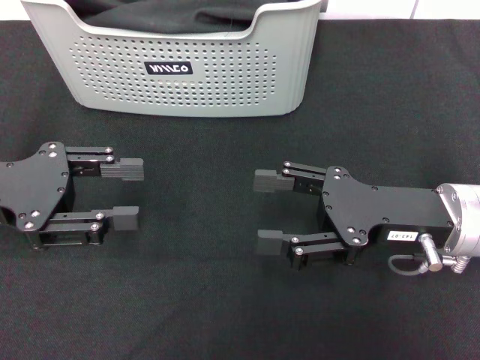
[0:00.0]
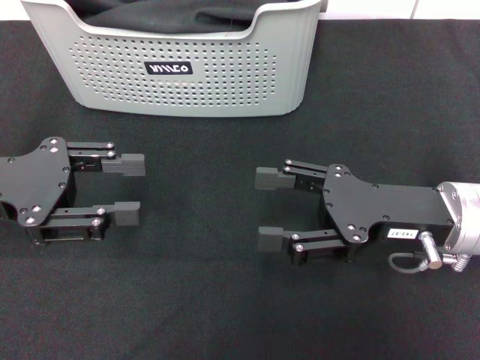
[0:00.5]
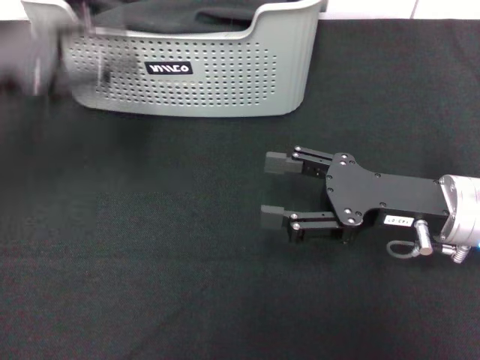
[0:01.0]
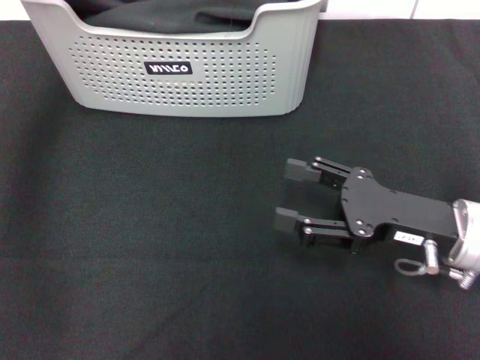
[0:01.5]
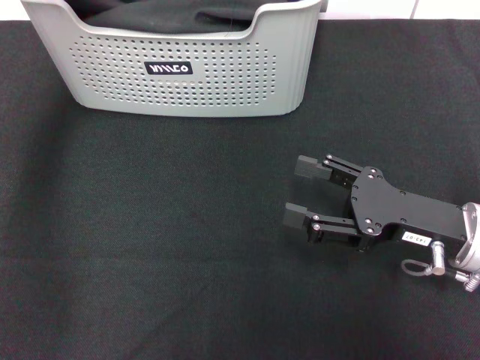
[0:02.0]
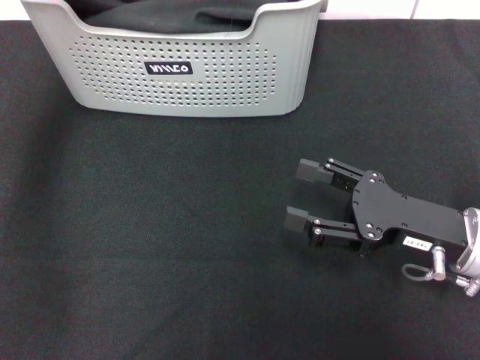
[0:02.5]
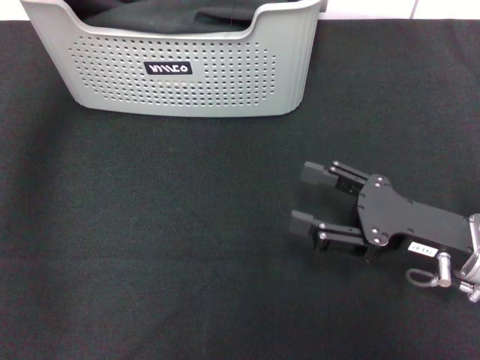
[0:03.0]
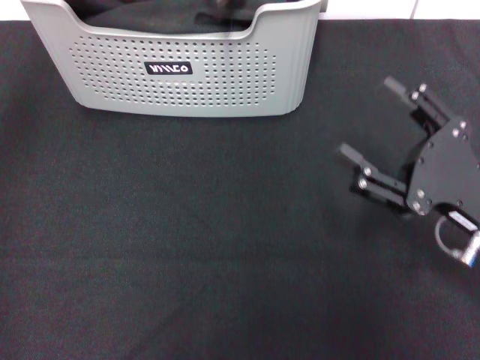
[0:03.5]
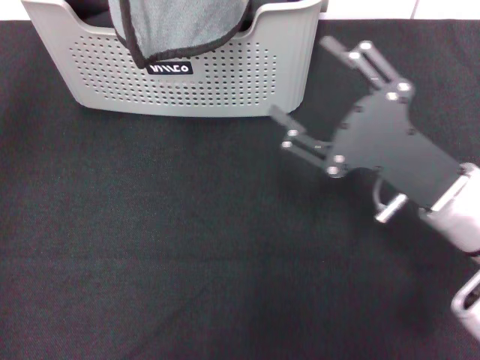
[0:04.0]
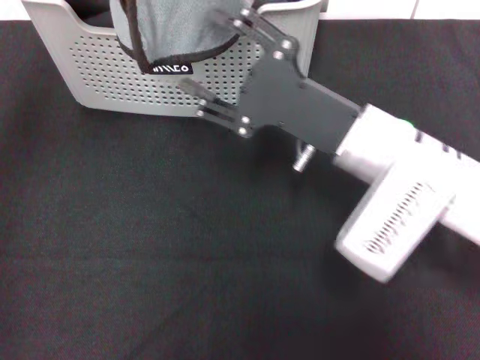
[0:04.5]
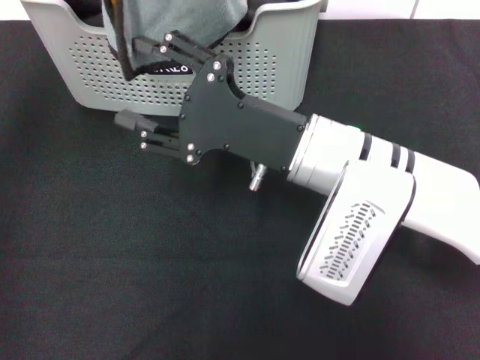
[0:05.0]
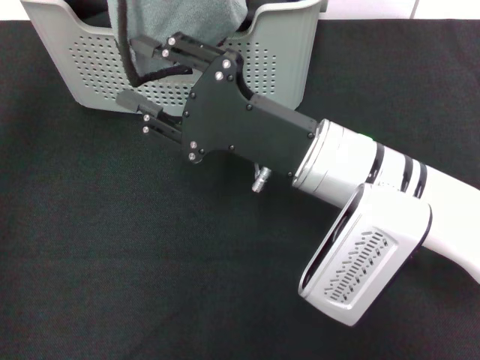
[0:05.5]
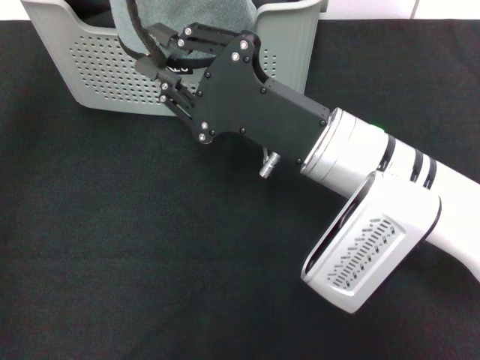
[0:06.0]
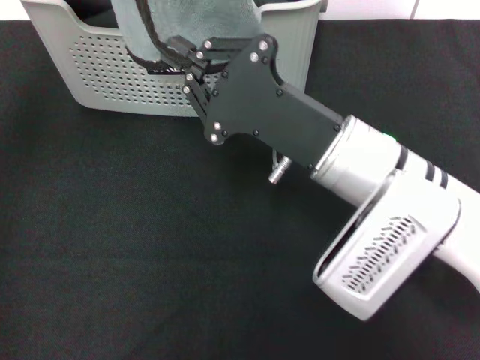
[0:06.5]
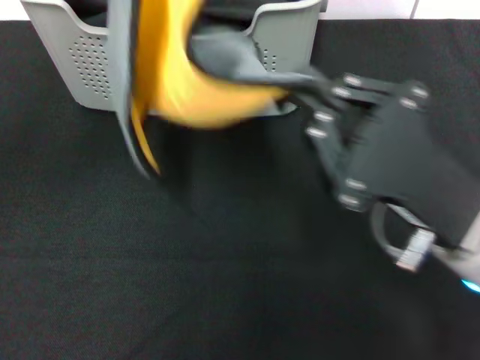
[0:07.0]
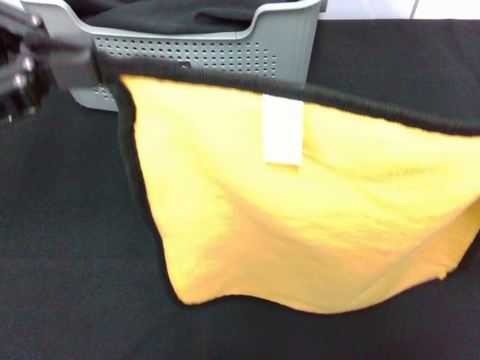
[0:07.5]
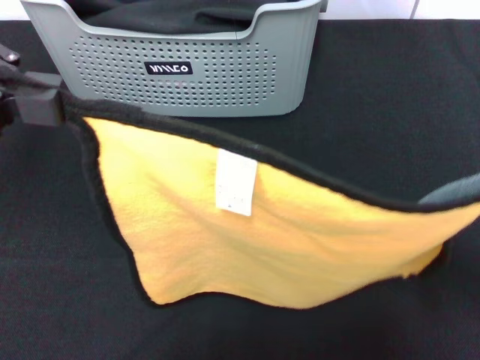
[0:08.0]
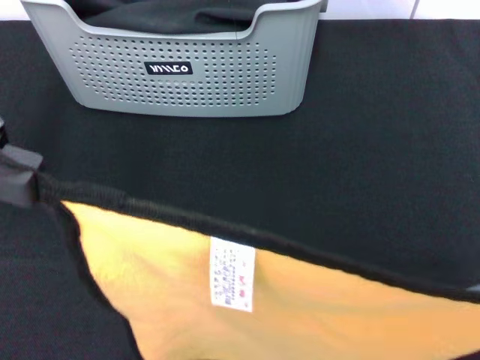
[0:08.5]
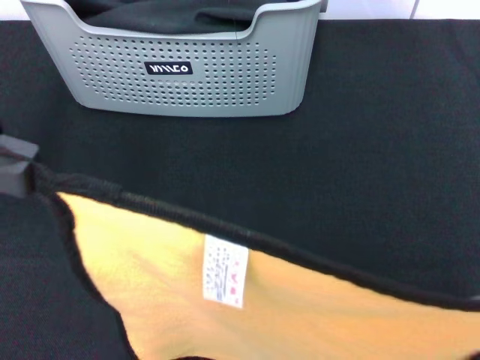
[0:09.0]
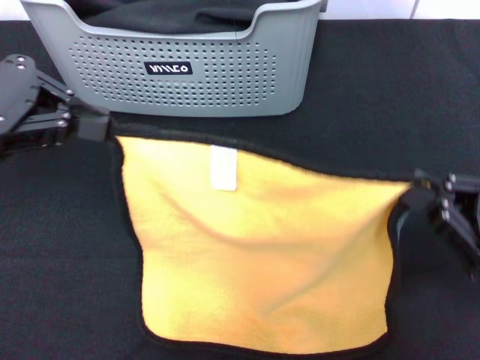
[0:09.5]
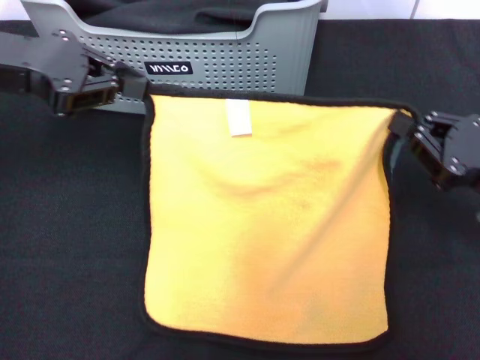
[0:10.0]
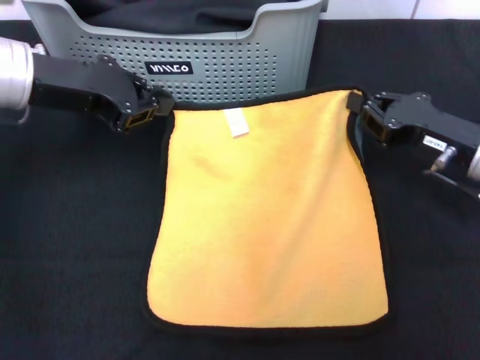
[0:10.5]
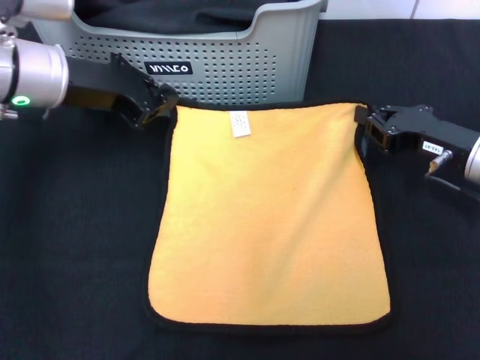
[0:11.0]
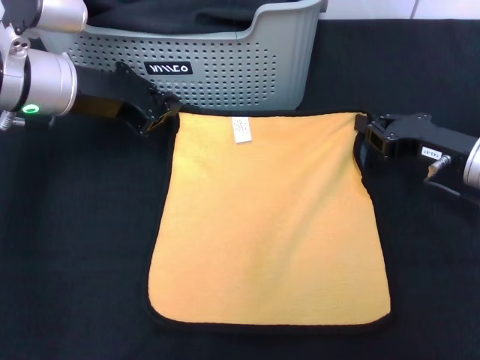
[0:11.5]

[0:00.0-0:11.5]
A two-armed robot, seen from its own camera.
Task of the whole recording: pick up the towel from the storage box and lay it flat on the black tablecloth.
Step, 0:00.0 to 0:03.0: Pick up a towel with the left gripper.
Step, 0:03.5 to 0:06.5: Spread the towel flat with the left gripper.
0:00.0 to 0:02.0: The left gripper heads forward, upward and to the right, covering roughly 20 cm.
0:02.0 to 0:04.0: The left gripper is displaced backward and upward by about 15 cm, and closes.
0:04.0 to 0:06.0: The right gripper heads to the left, covering about 10 cm, and closes.
0:06.0 to 0:07.5: The left gripper heads backward, covering roughly 5 cm; the right gripper shifts about 20 cm to the right, and closes its fingers.
0:07.5 to 0:09.5: The left gripper travels forward by approximately 5 cm.
0:09.5 to 0:11.5: The left gripper goes some 15 cm downward, to the right and forward, while the right gripper goes about 15 cm forward.

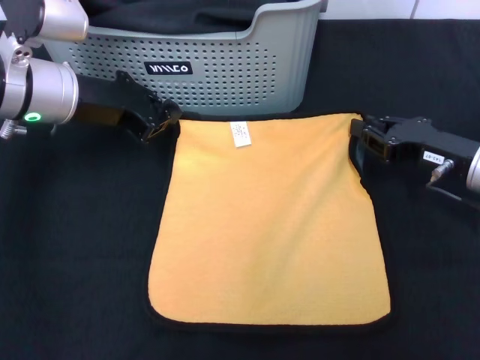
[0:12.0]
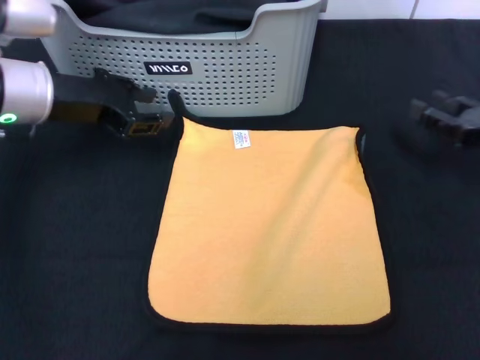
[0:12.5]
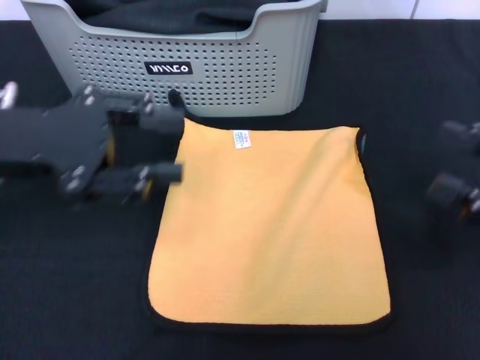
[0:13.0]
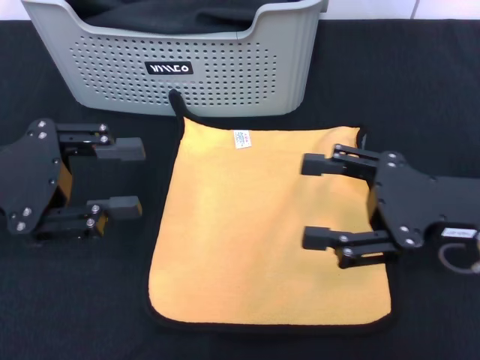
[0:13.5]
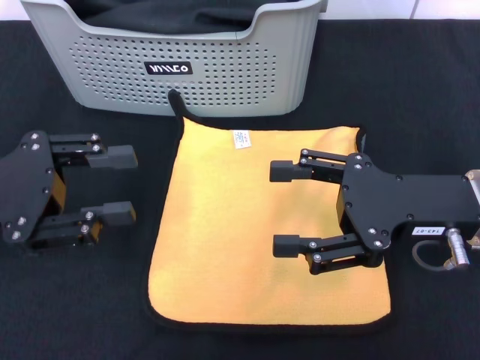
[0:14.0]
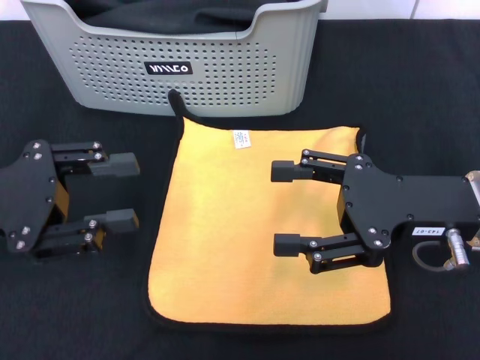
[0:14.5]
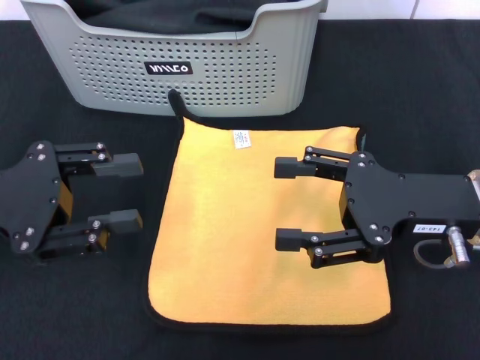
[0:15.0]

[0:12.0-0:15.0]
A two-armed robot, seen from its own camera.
Task of the whole recording: pick up the towel from the storage box and lay it flat on the black tablecloth.
0:12.0 to 0:13.5: The right gripper moves backward and upward, about 10 cm, goes to the right and returns, approximately 5 cm each way, and opens up. The left gripper travels backward and to the left by roughly 15 cm, and opens up.
0:13.5 to 0:15.0: The grippers stay close to where they were, moving slightly.

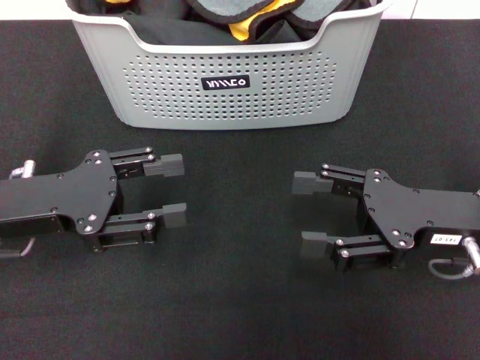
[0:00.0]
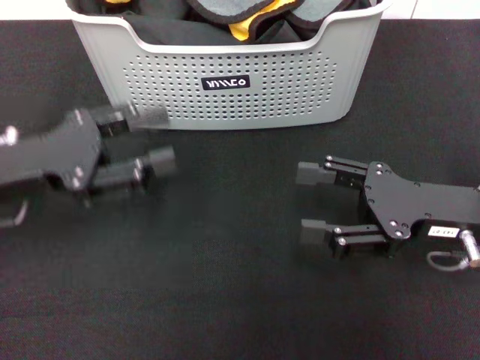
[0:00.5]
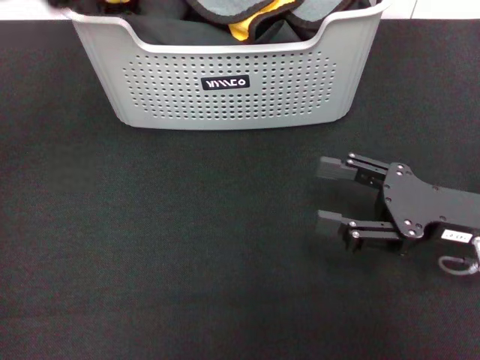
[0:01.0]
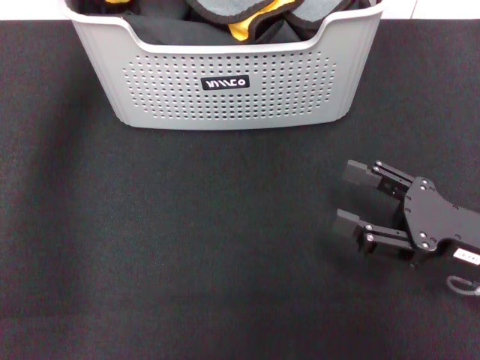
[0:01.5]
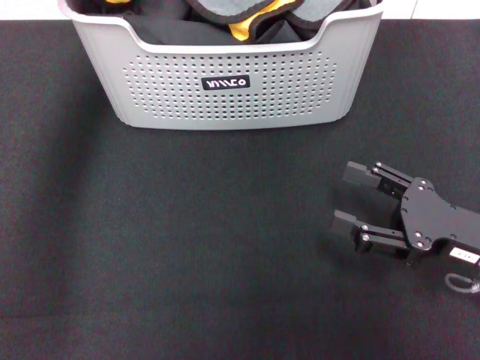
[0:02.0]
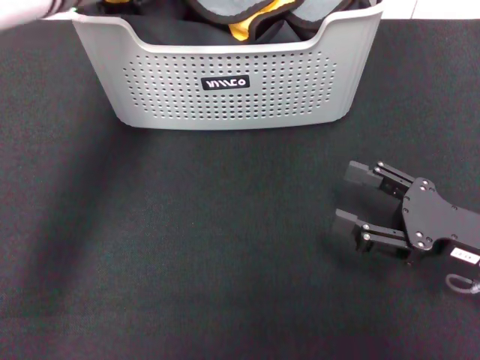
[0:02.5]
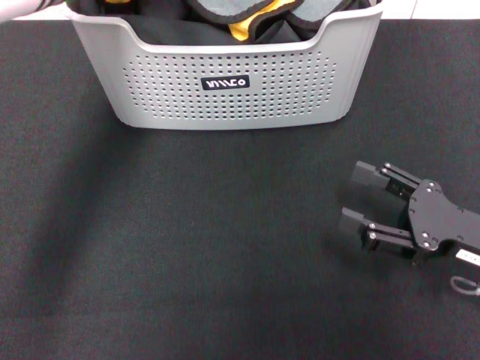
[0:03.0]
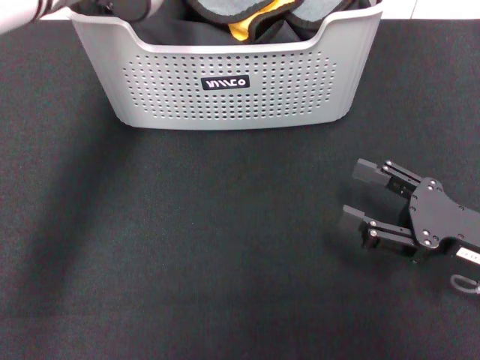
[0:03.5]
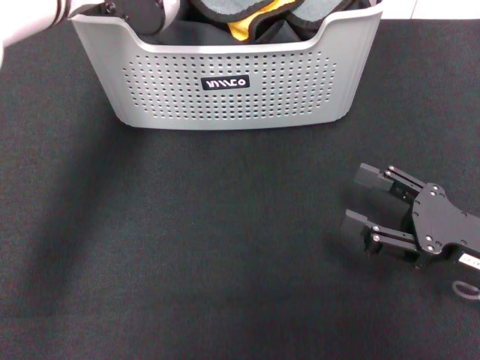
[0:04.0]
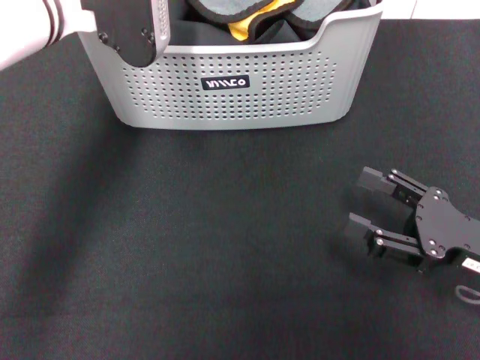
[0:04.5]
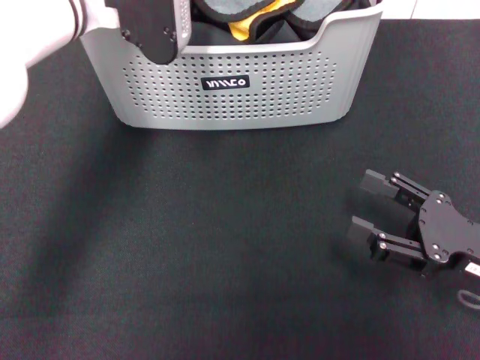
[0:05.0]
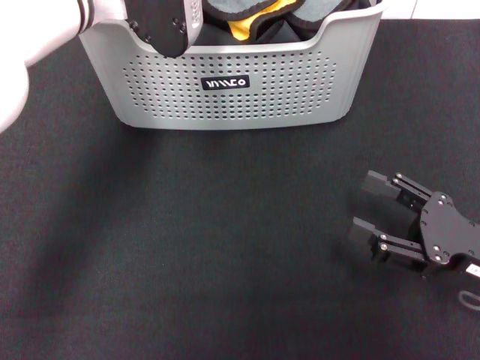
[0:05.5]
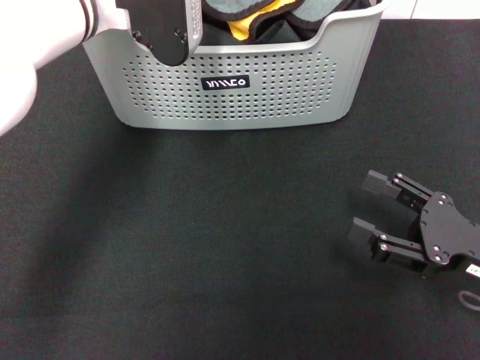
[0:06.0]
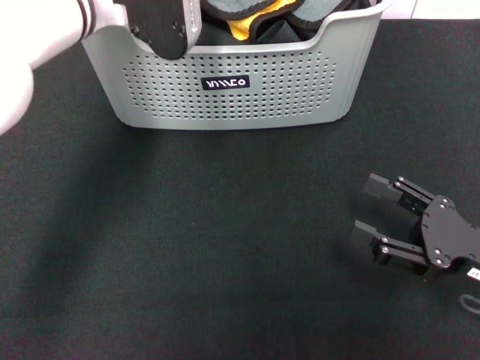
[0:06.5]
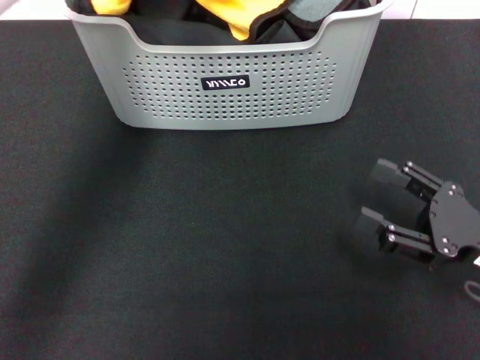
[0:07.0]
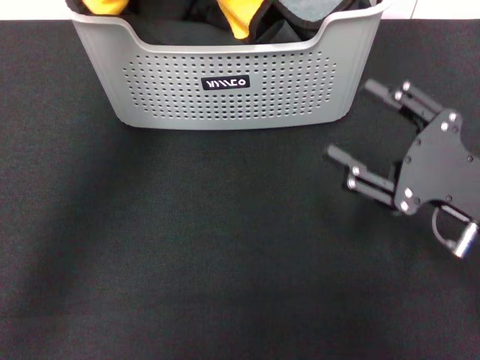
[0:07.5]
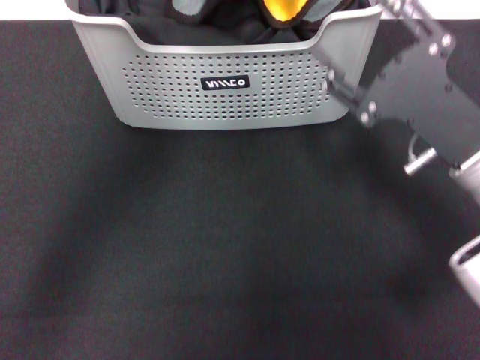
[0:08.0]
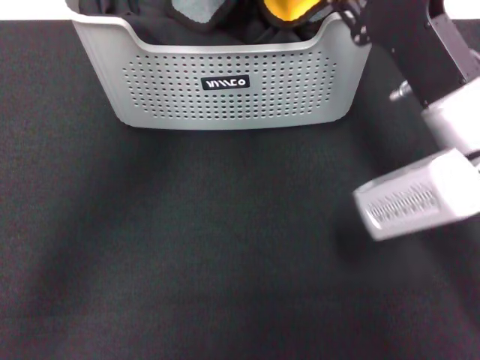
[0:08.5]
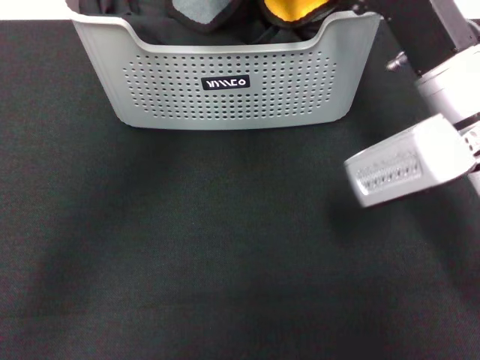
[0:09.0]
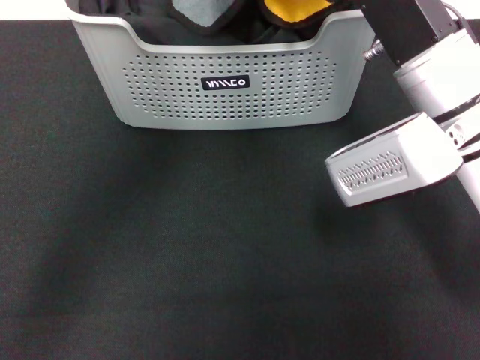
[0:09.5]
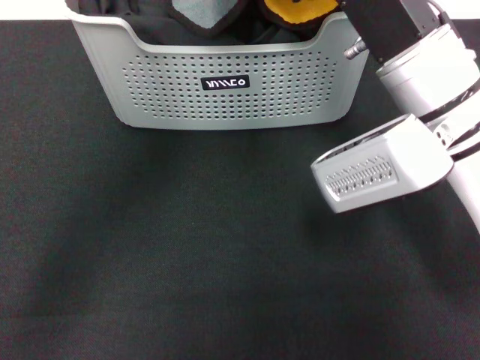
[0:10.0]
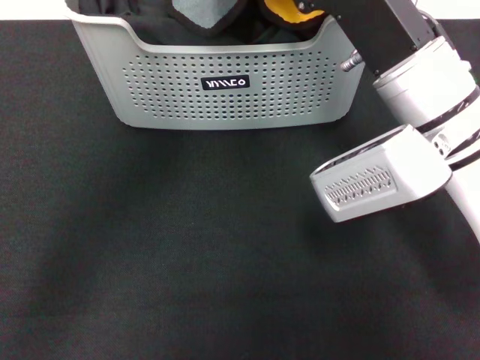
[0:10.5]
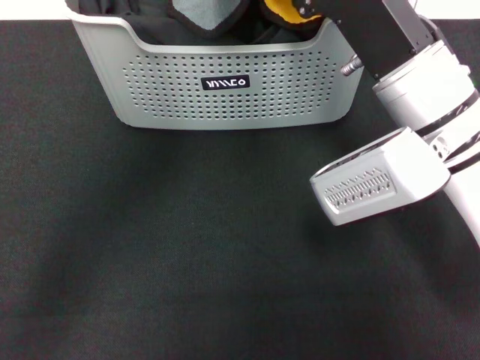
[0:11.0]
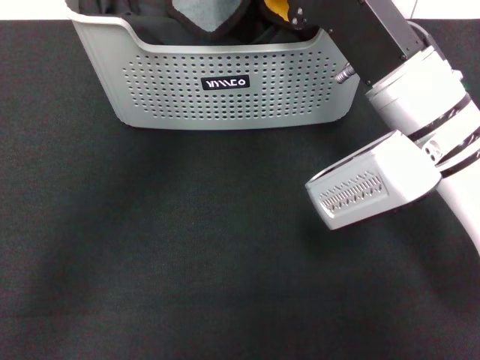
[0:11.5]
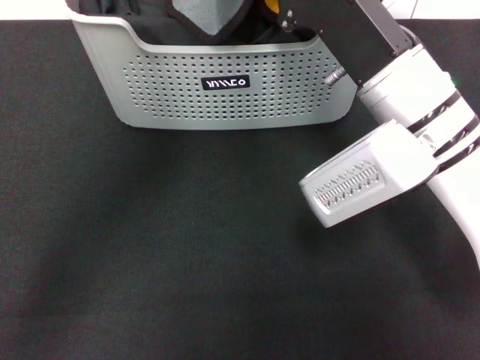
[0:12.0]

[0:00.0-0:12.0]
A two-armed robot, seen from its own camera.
Task of the whole recording: pick up the towel from the storage box and lay it flat on the black tablecloth.
Step, 0:00.0 to 0:06.5: Pick up a towel with the left gripper.
0:00.0 to 0:02.0: The left gripper goes roughly 25 cm forward, upward and to the right. The right gripper ends up some 5 cm from where it was.
0:02.0 to 0:04.0: The left gripper goes some 5 cm downward.
0:04.0 to 0:06.0: The left gripper closes its fingers.
0:06.0 to 0:08.0: The right gripper goes approximately 10 cm to the left, upward and forward. The left gripper moves upward and backward, some 15 cm, and closes its fingers.
0:08.0 to 0:10.0: The right gripper is displaced to the left and upward by roughly 10 cm.
0:10.0 to 0:12.0: The right gripper closes its fingers.
